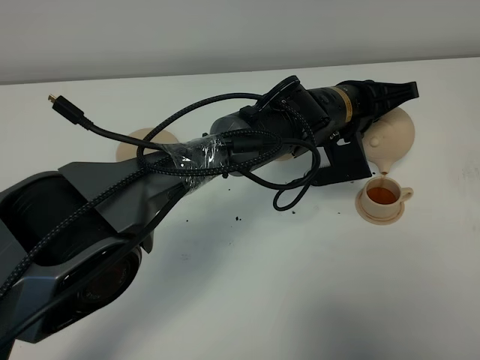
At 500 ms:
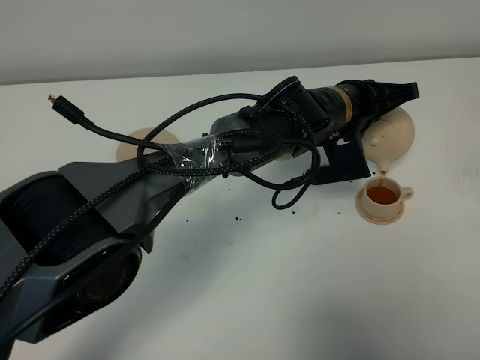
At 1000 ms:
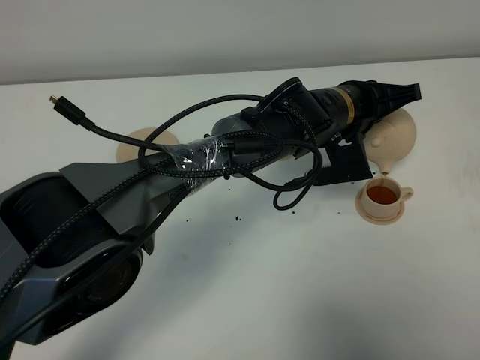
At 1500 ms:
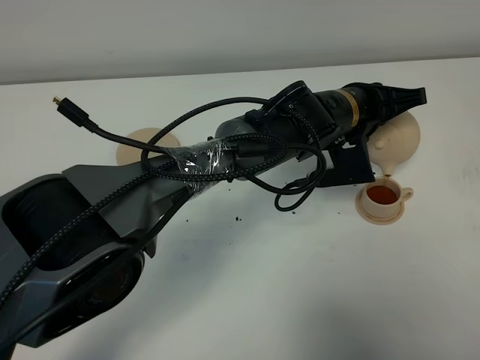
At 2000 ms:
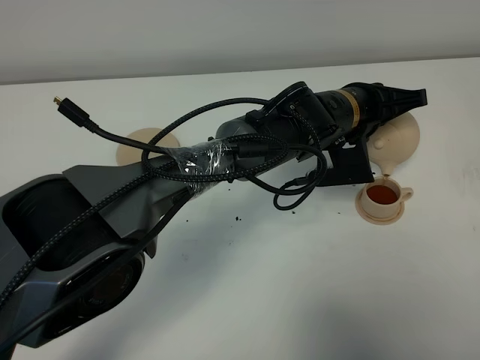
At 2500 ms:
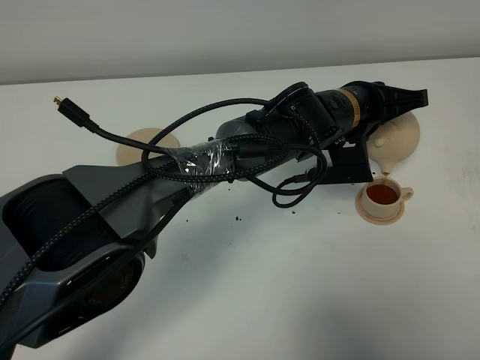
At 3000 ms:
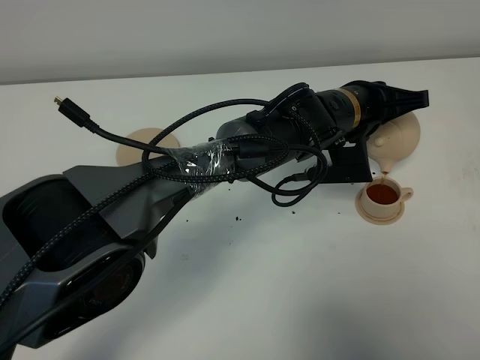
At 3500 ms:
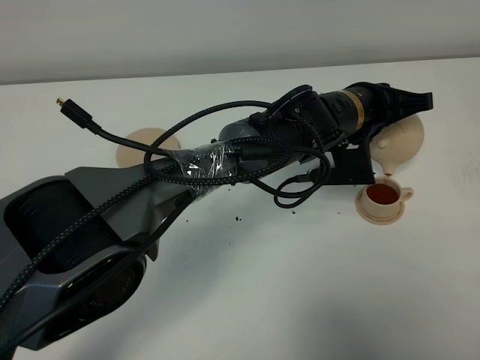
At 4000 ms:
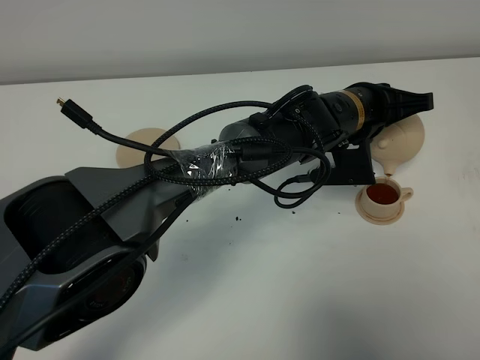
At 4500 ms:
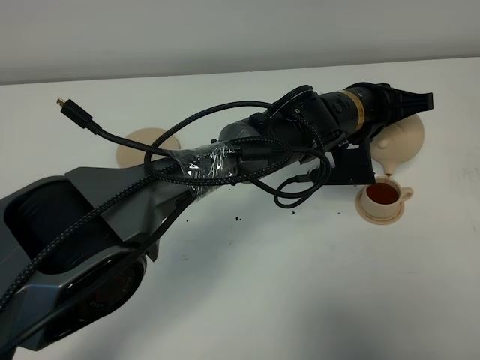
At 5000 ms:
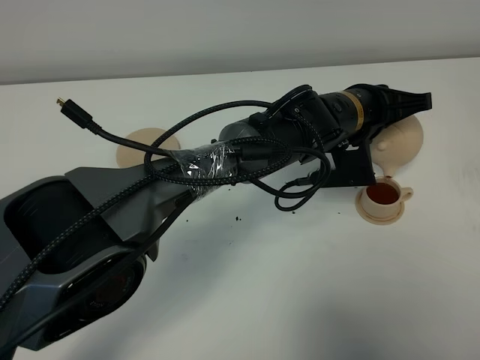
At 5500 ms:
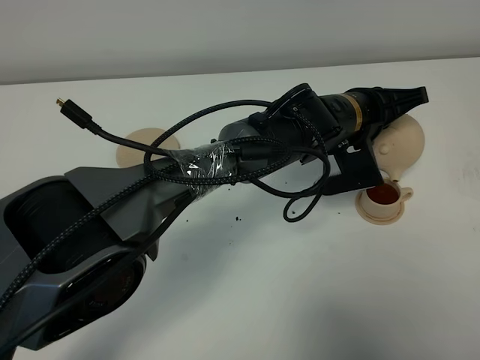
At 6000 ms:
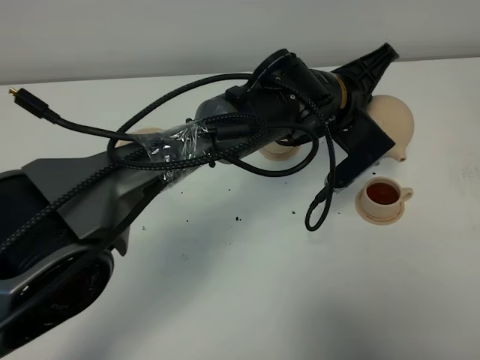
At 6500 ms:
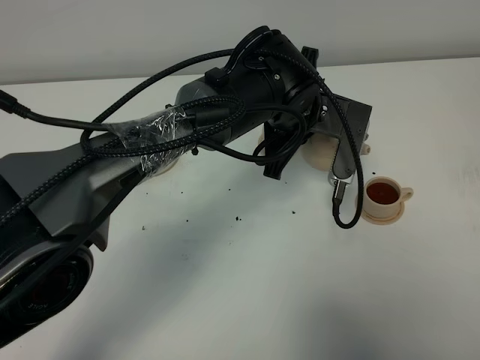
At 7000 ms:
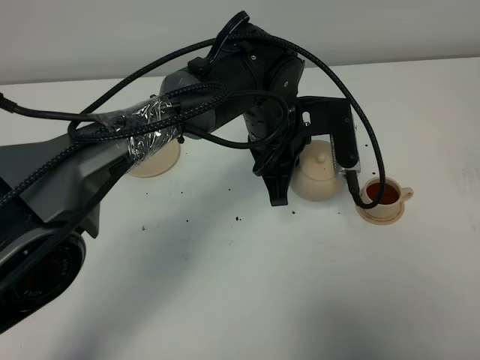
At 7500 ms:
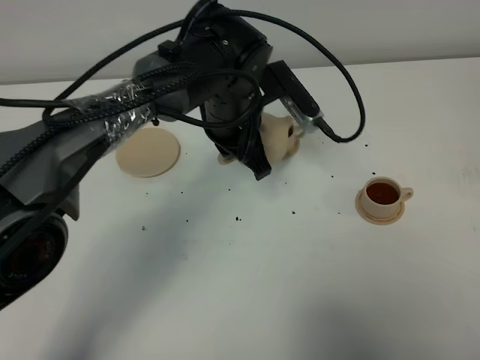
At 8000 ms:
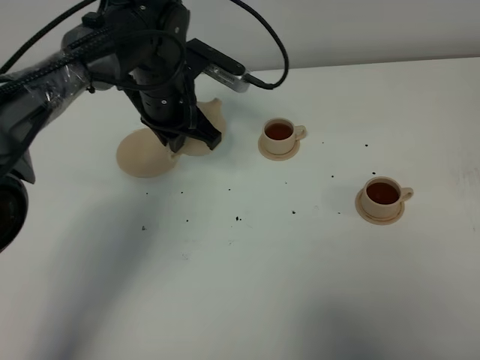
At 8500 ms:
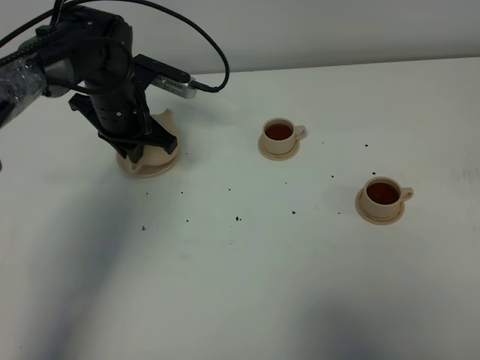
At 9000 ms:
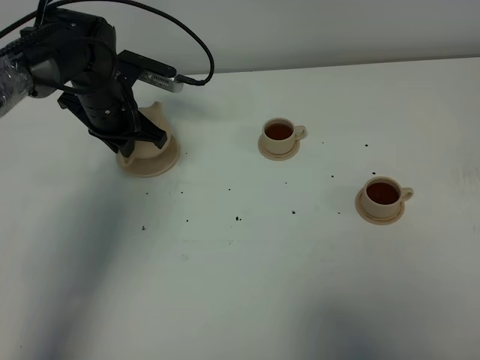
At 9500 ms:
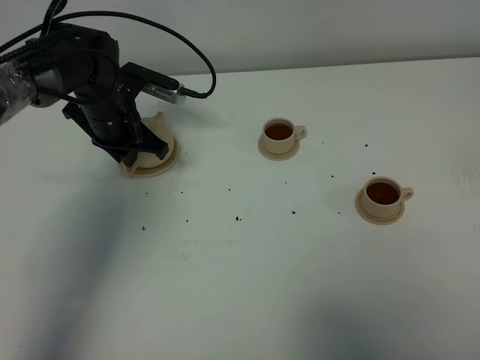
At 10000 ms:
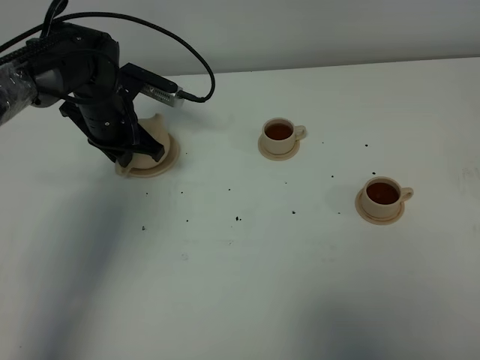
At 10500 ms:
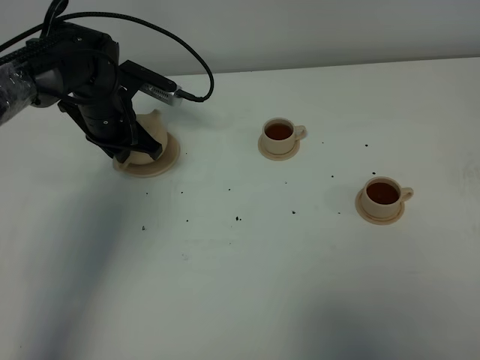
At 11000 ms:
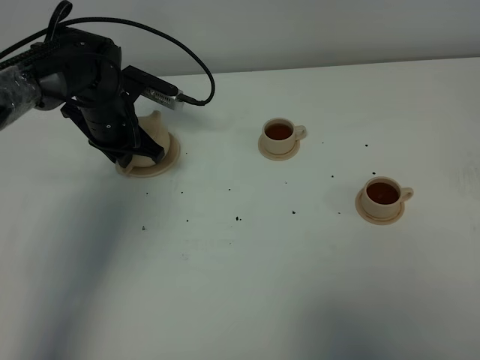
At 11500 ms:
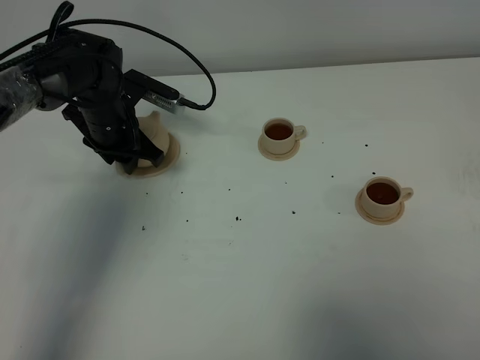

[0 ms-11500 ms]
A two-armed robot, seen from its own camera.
Task of the whole recording: grasp the brown teapot and pour the tea into the two brown teacups one by one, put the brown teapot back in its original place.
Step, 0 ms to 5500 ms: Pour tea into the teacup with the left gripper.
0 ms to 2000 ms: Both grippers stay about where they are.
2000 ms to 4000 ms: Both grippers stay about where they are.
6000 ms to 7500 ms: The left gripper heads to the left, covering about 10 cm.
7500 ms to 9500 ms: The left gripper travels to the left by some 15 cm.
9500 ms to 11500 ms: The left gripper opens its fingers.

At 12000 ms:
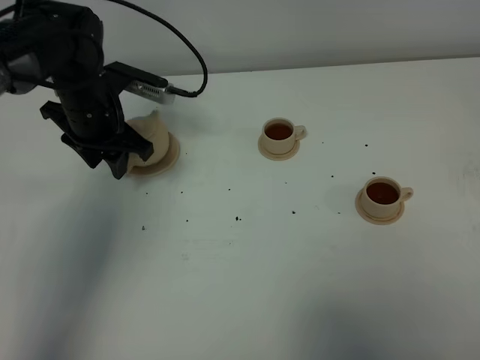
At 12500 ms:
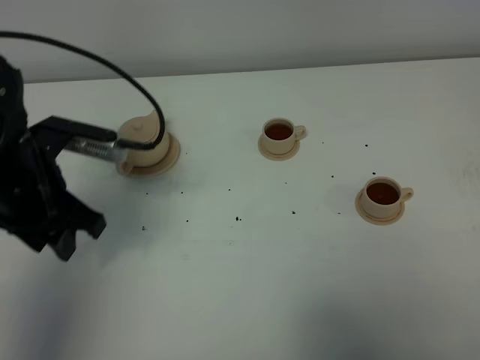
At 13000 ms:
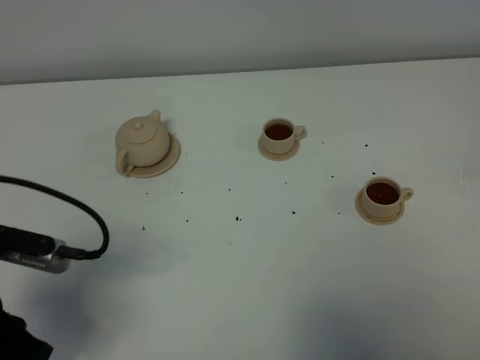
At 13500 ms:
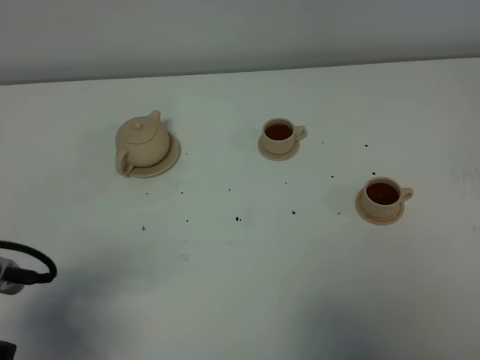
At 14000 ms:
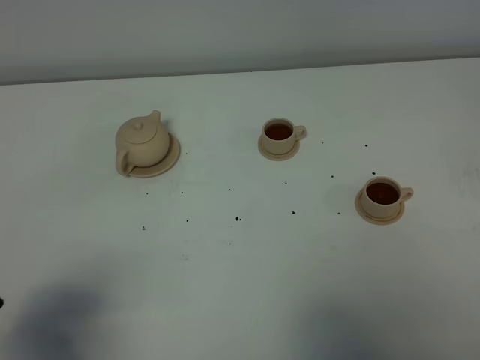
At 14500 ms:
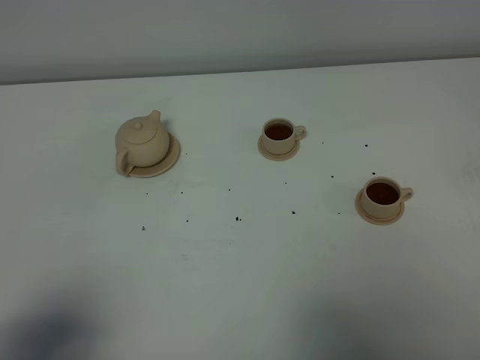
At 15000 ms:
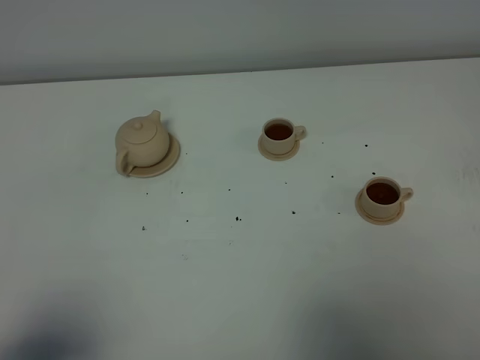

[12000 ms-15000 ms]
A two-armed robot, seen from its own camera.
Task of the whole recording: grasp the brown teapot and pour the tea into the two brown teacups one by one, put the brown teapot back in its original place.
12000 ms to 13500 ms: The left gripper goes some 30 cm backward.
13500 ms to 15000 ms: The left gripper heads backward, covering approximately 10 cm.
